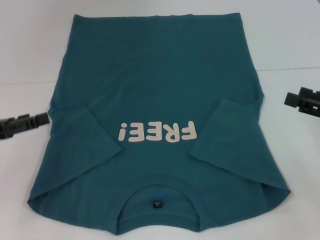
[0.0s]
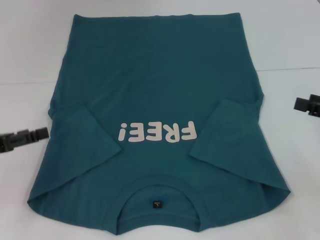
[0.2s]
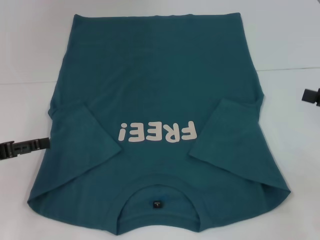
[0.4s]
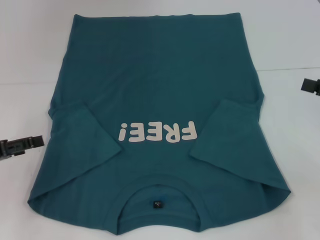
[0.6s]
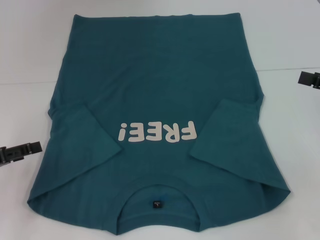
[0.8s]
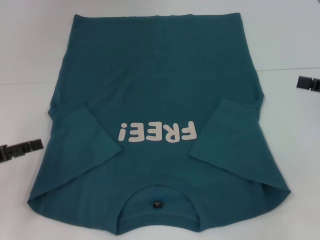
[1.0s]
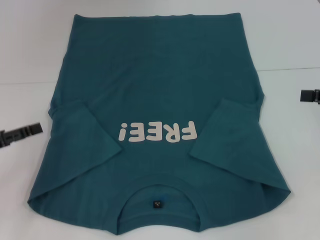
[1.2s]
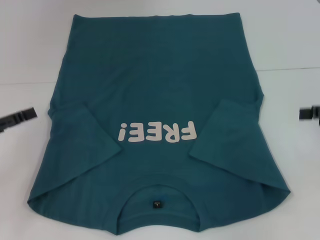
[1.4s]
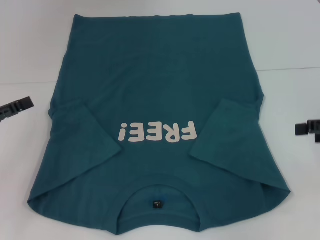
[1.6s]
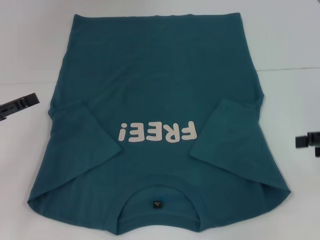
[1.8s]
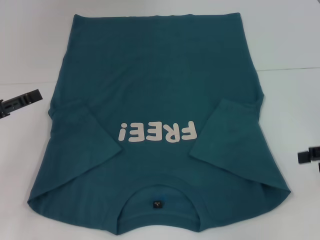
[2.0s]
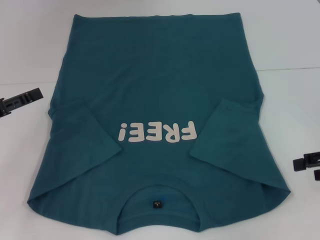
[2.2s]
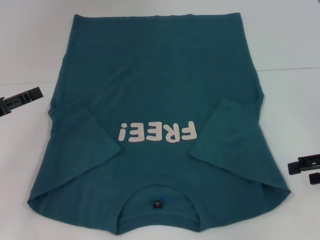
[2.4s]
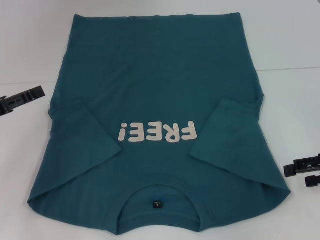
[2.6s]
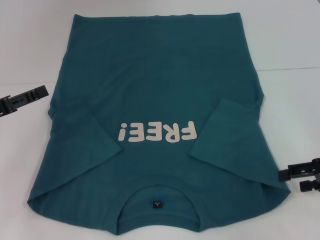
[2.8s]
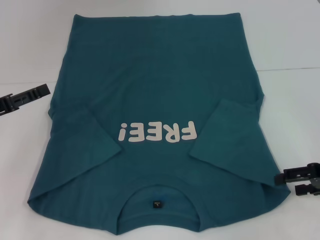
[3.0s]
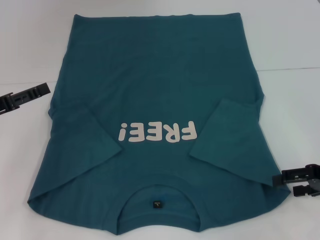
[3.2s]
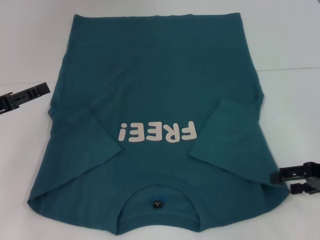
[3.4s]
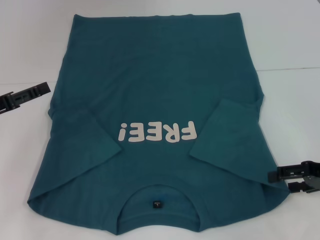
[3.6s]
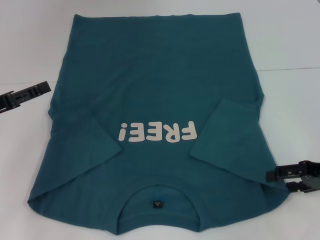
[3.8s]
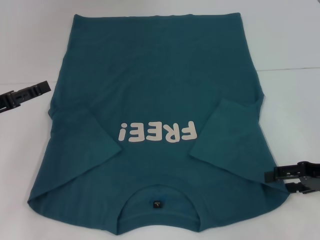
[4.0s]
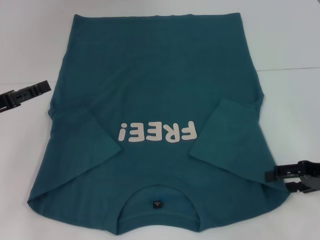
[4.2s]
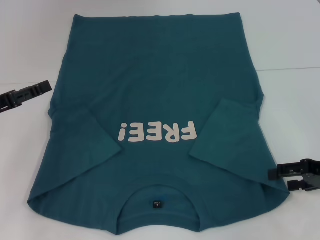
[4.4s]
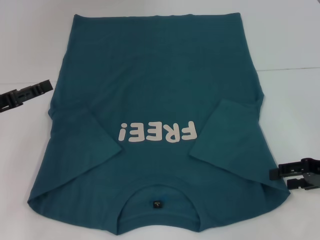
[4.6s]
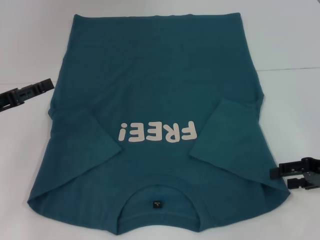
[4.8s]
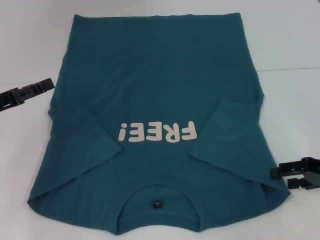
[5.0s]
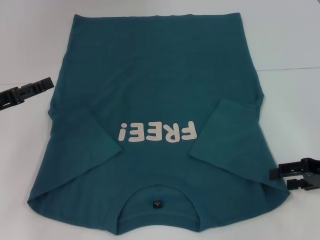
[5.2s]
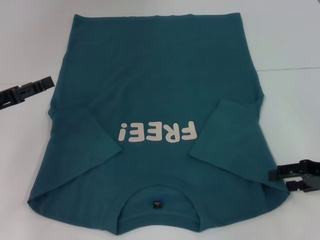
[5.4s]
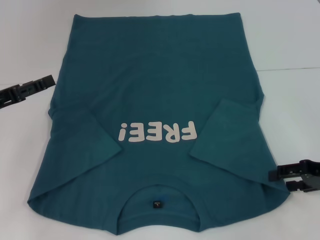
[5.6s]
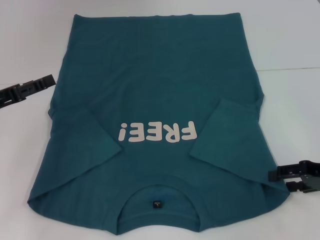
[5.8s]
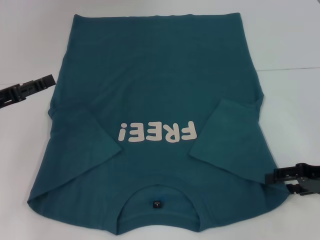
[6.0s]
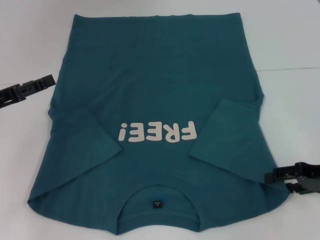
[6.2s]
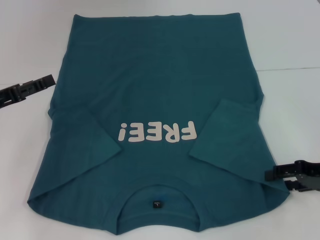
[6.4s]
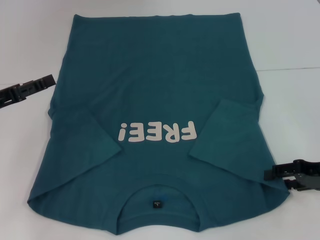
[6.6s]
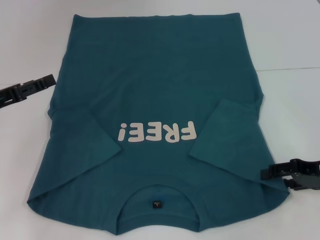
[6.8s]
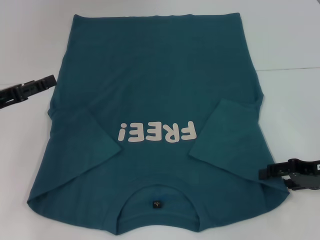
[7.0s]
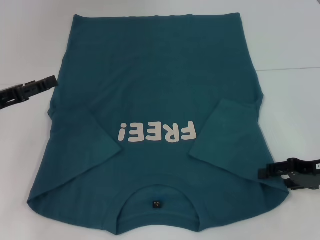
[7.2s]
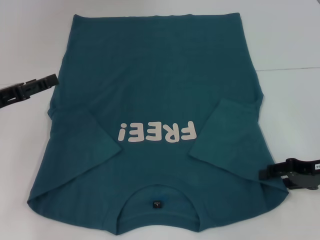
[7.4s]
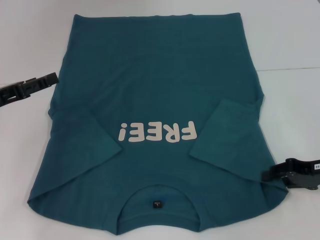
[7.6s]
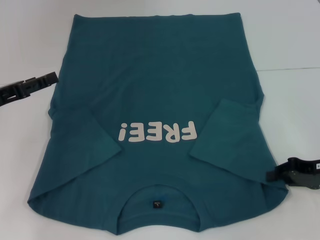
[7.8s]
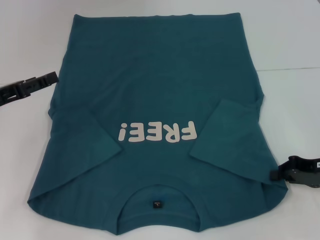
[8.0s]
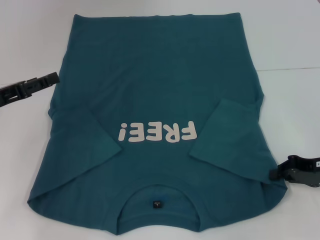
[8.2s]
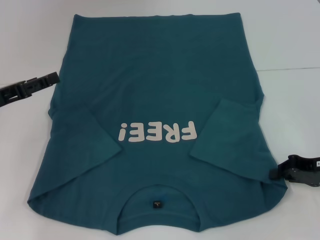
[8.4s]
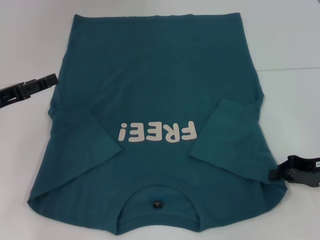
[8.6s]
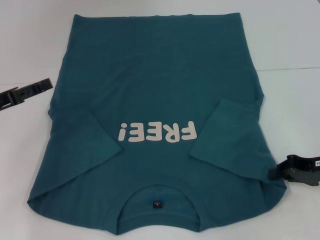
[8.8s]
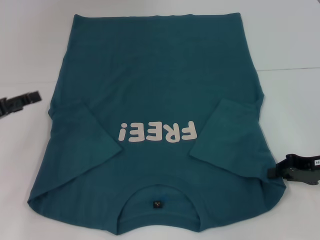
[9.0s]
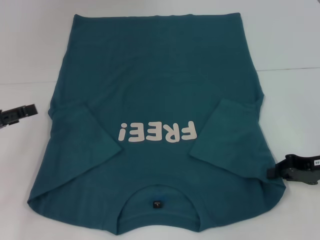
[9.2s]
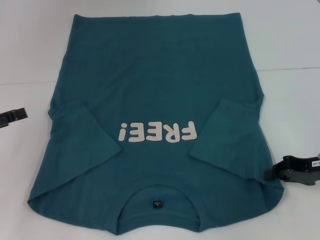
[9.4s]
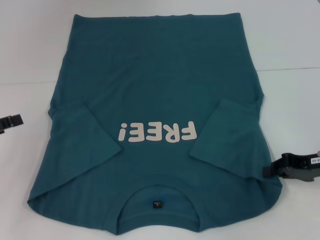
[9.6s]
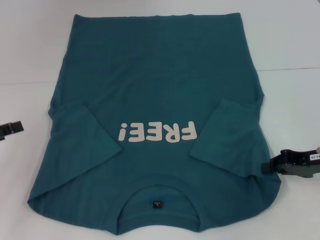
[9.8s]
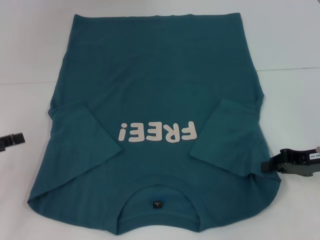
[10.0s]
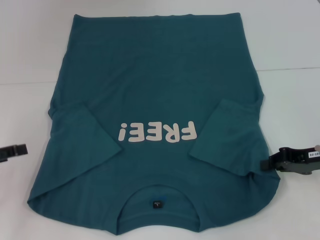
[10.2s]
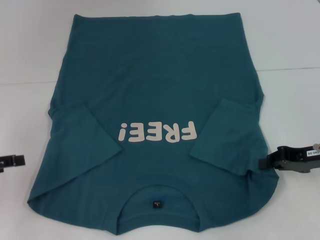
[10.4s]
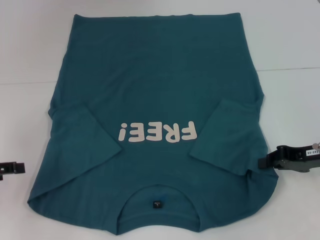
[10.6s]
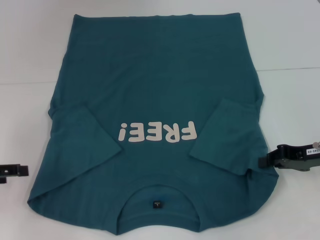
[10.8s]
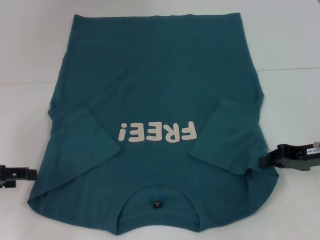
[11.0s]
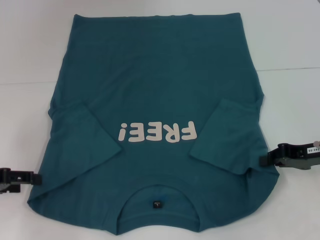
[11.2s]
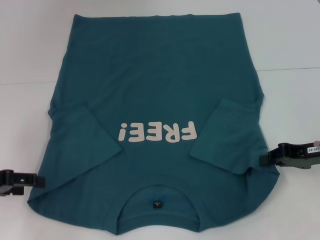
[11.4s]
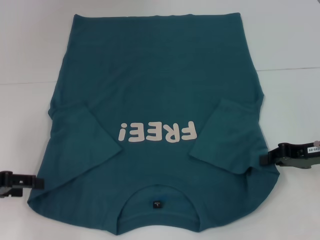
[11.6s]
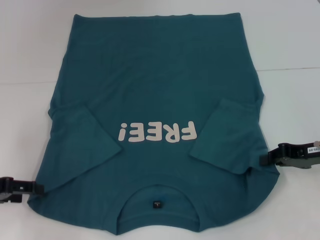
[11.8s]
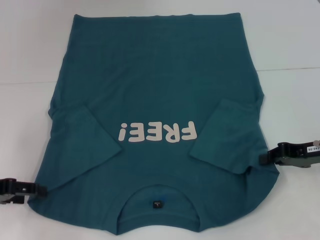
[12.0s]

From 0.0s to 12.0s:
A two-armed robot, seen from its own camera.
Step, from 0.0s to 8.0s: Grab the bottom right corner with your right hand.
From 0.0s to 1.6s: The right gripper changes place by some 5 cm.
From 1.6s to 3.0s: The right gripper goes about 5 cm downward.
From 3.0s to 4.4s: Neither gripper changes place.
From 4.4s to 6.0s: Both grippers stay put.
From 6.0s to 7.6s: There are only small adjustments of the grippers.
From 7.6s to 9.0s: The right gripper closes.
From 9.0s to 10.4s: The left gripper moves about 5 cm.
From 10.4s to 12.0s: The grippers make only small movements.

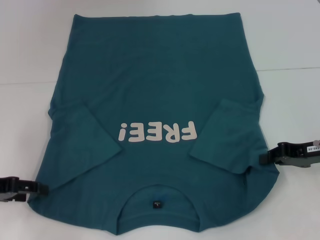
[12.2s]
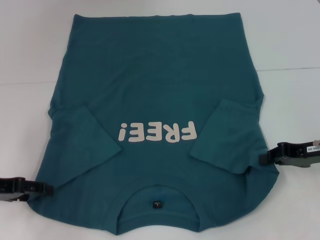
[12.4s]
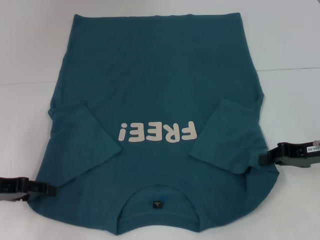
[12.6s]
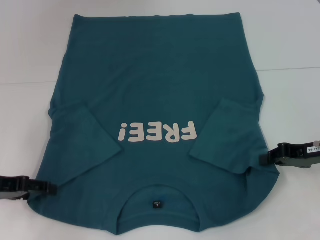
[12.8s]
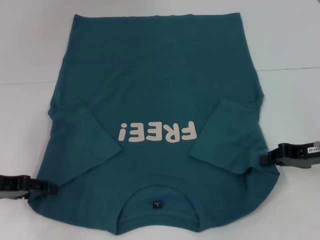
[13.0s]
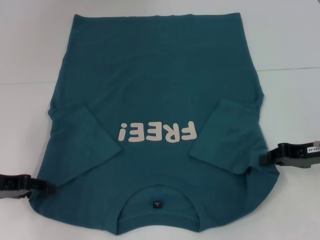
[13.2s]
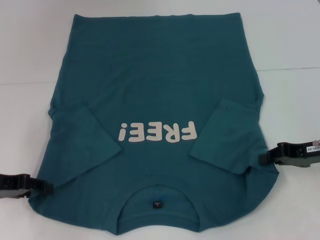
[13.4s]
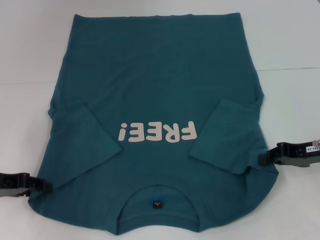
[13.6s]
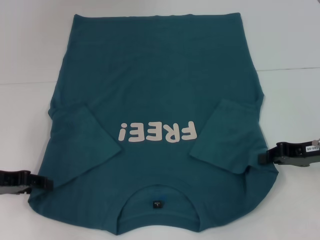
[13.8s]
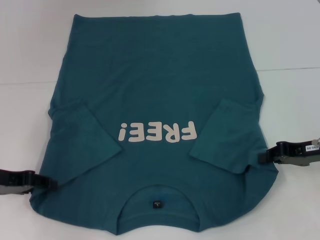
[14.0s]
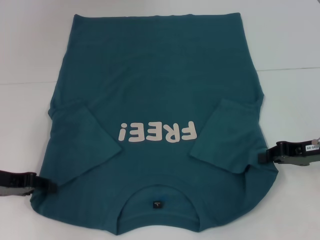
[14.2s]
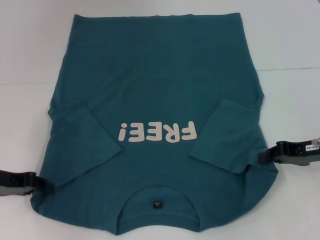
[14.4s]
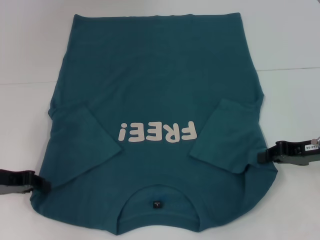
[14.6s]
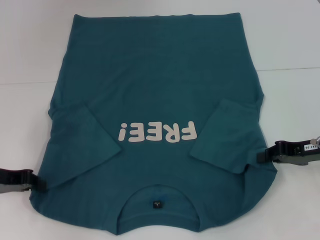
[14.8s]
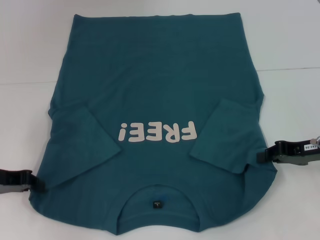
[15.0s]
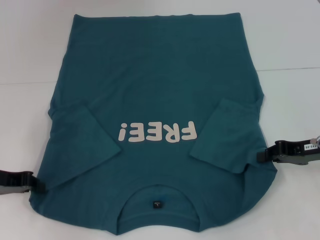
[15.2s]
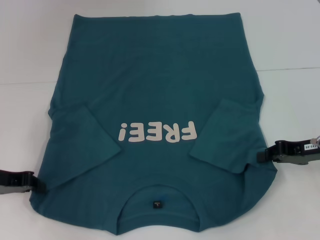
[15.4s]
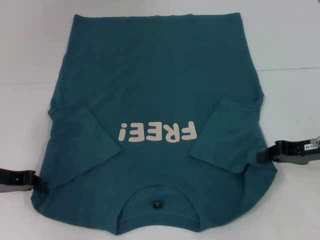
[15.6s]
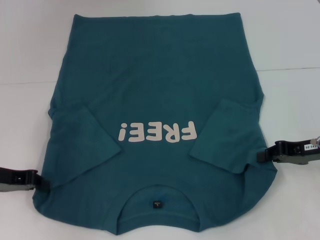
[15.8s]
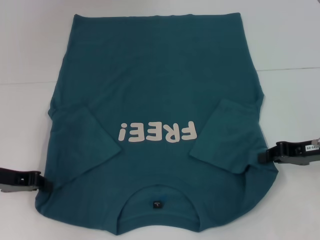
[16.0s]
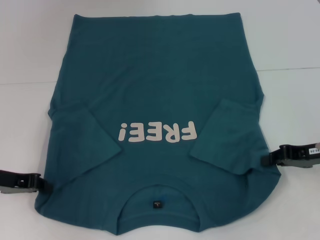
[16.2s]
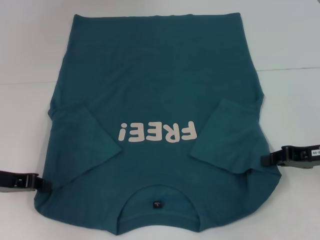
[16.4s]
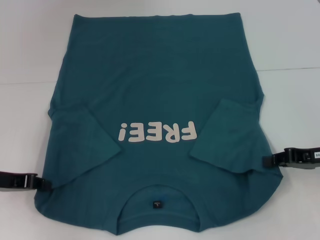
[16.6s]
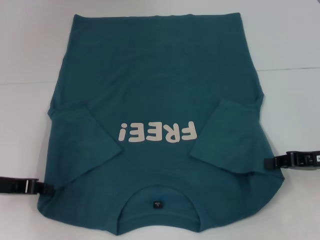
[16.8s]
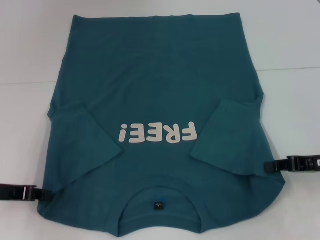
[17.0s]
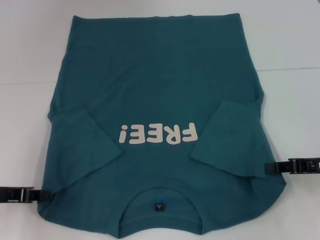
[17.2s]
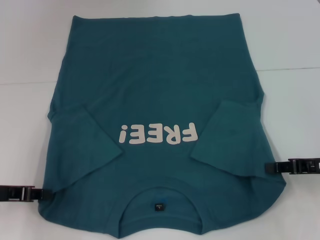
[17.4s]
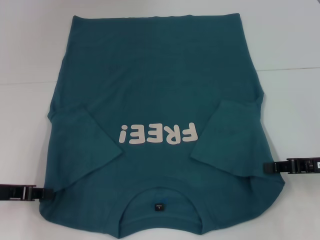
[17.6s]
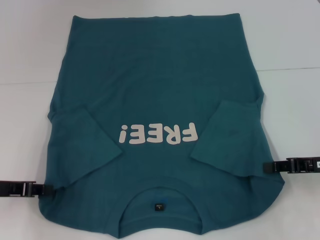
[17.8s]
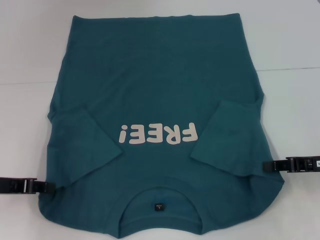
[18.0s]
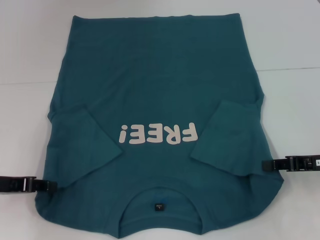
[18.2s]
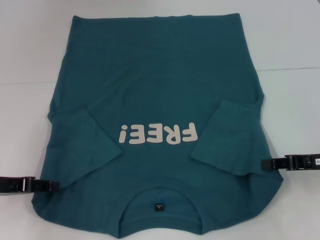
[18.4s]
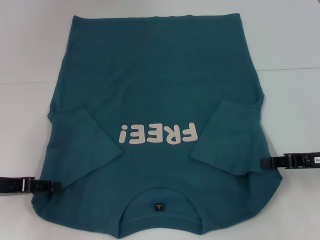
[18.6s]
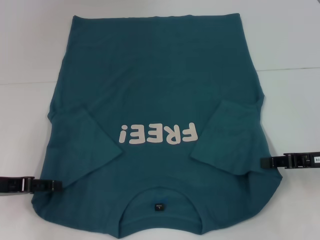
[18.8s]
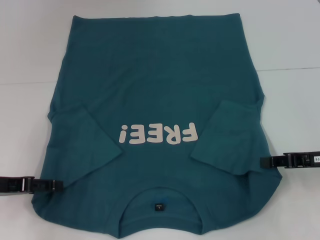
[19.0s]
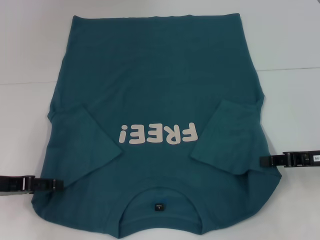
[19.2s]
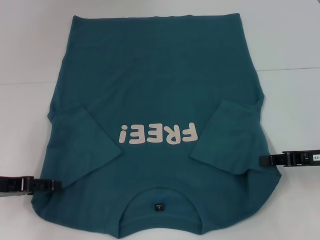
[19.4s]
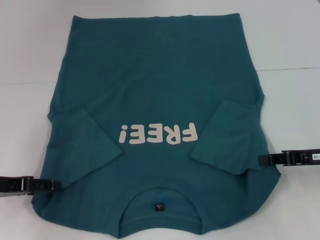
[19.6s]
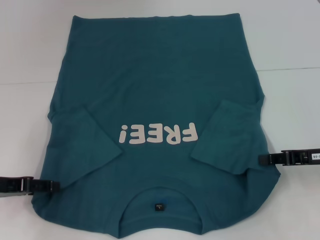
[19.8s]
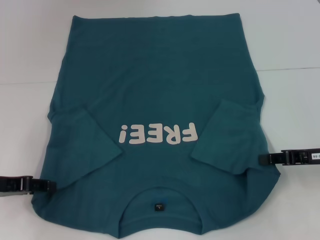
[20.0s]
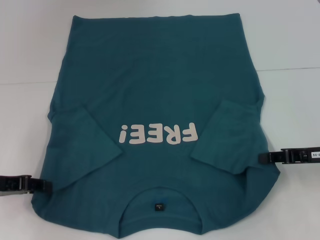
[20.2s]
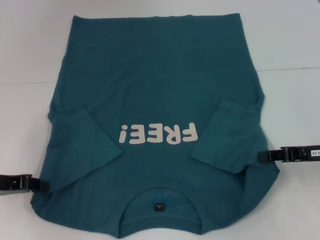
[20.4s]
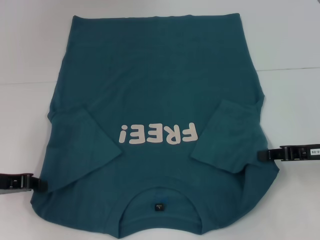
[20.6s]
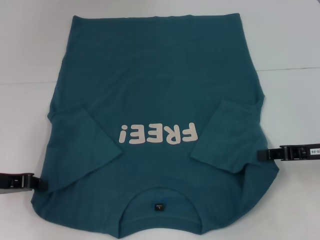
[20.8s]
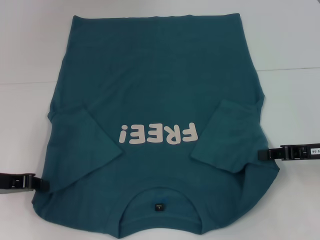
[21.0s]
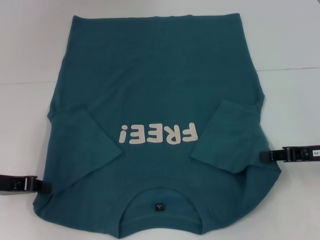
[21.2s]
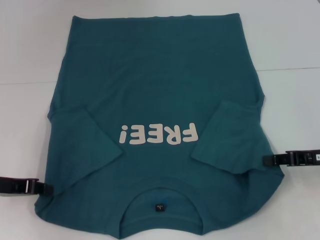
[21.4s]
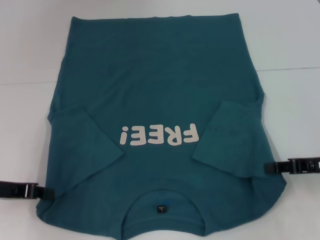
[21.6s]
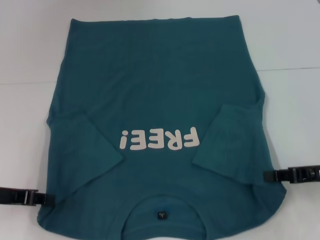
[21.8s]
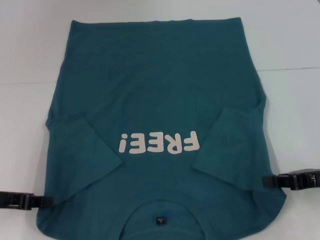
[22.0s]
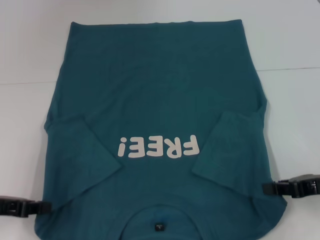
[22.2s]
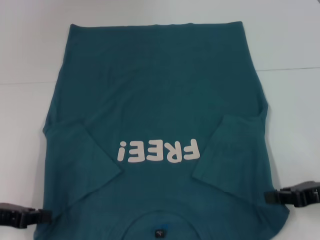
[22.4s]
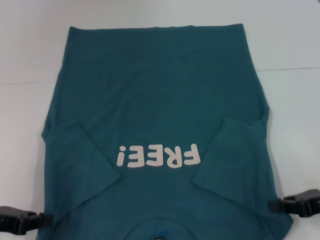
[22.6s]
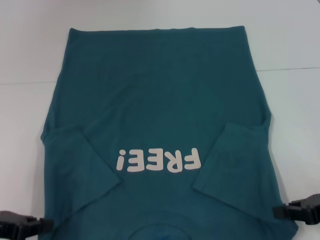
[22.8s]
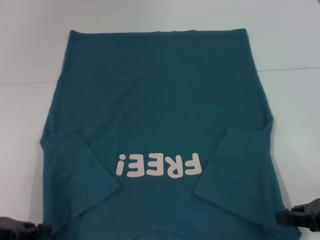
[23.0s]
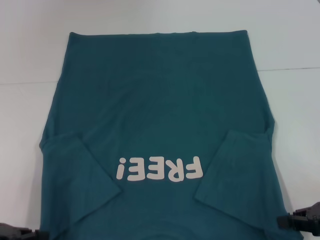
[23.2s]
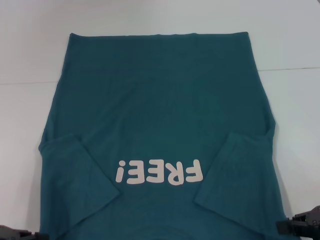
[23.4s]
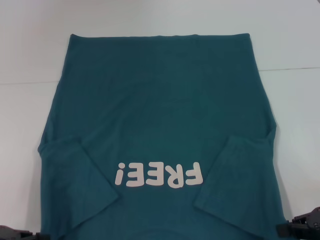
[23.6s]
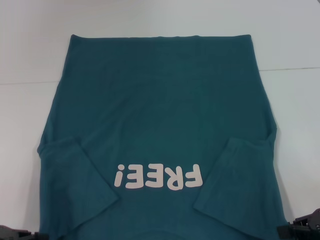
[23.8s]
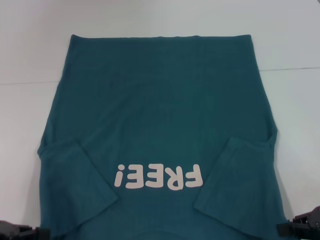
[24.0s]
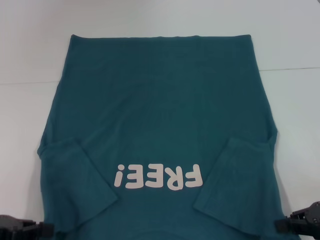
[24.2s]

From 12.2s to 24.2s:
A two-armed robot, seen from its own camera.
From 12.2s to 13.8s: There are only small adjustments of the grippers.
From 15.2s to 18.2s: There are only small adjustments of the grippers.
From 18.2s to 19.8s: The left gripper opens.
From 19.8s to 21.2s: The left gripper closes.
From 21.2s to 22.6s: Both grippers move backward, roughly 5 cm.
From 22.6s to 24.2s: The grippers move only a little.
